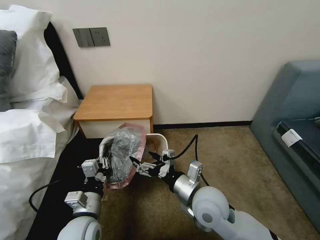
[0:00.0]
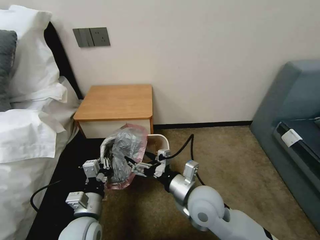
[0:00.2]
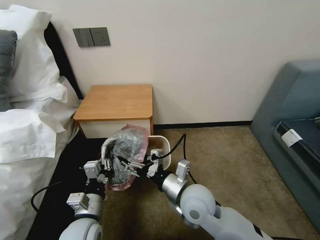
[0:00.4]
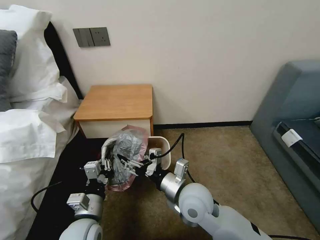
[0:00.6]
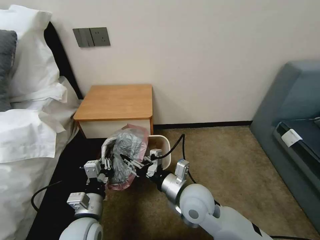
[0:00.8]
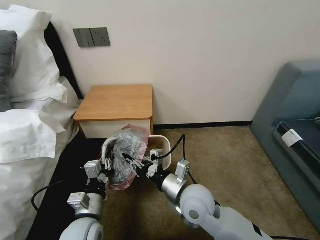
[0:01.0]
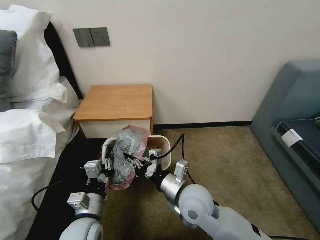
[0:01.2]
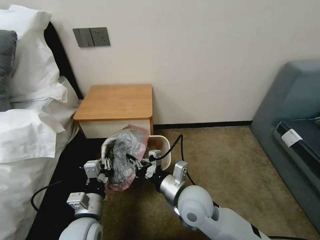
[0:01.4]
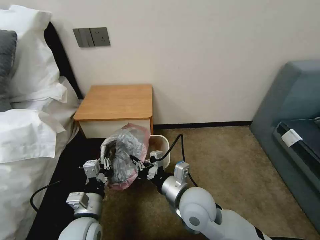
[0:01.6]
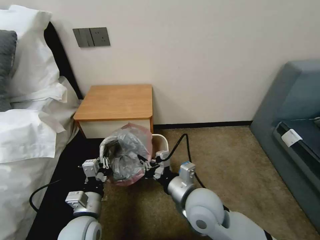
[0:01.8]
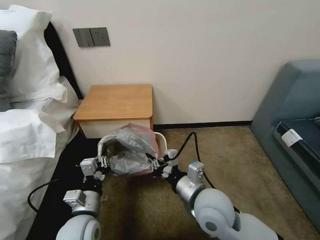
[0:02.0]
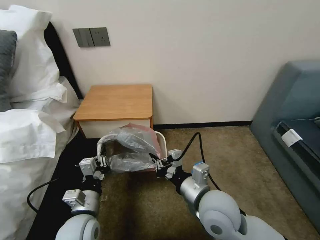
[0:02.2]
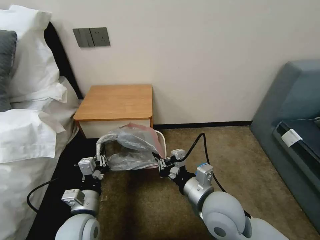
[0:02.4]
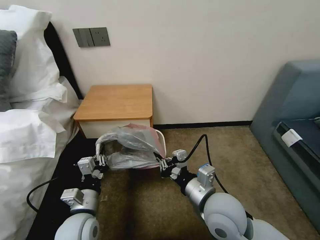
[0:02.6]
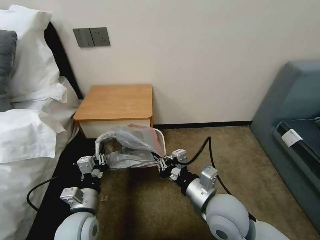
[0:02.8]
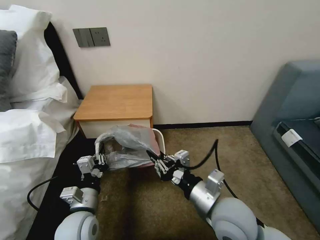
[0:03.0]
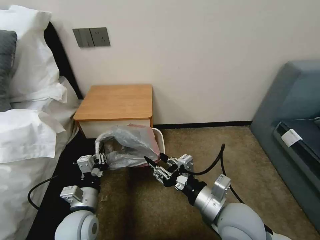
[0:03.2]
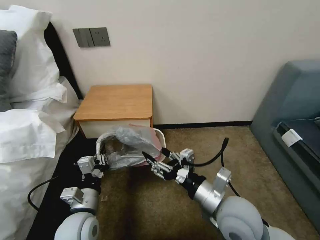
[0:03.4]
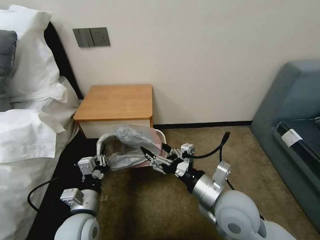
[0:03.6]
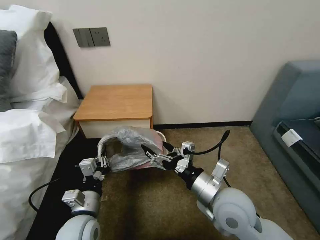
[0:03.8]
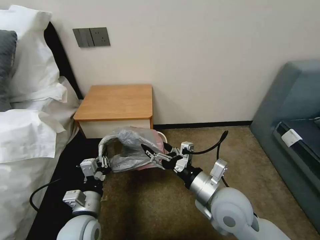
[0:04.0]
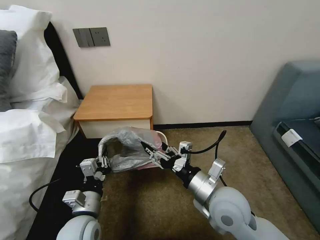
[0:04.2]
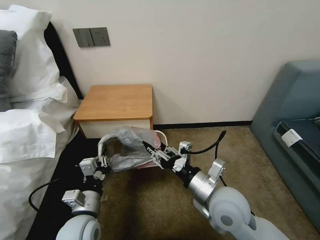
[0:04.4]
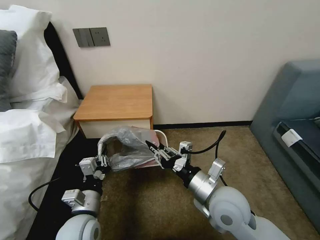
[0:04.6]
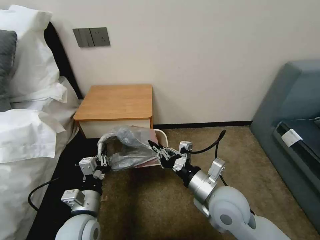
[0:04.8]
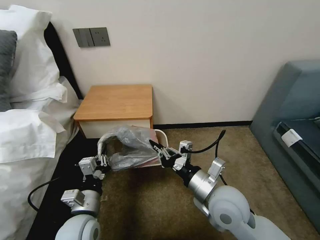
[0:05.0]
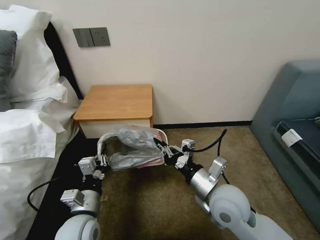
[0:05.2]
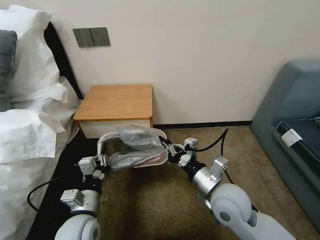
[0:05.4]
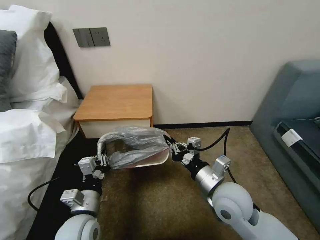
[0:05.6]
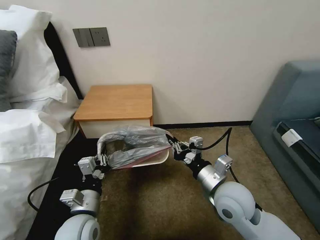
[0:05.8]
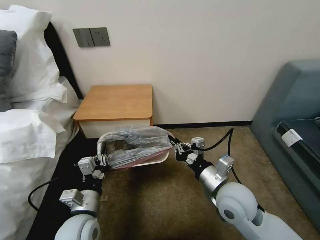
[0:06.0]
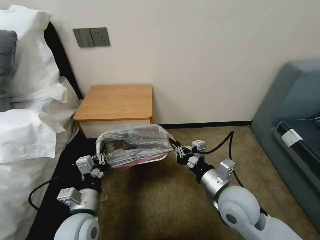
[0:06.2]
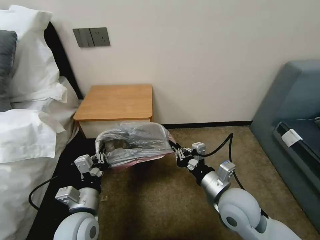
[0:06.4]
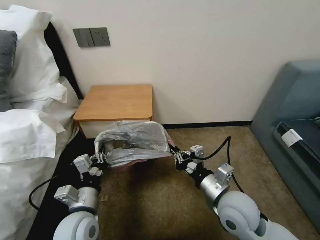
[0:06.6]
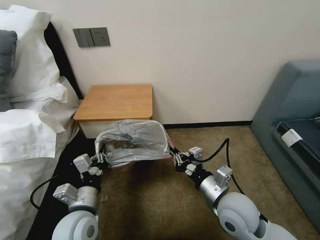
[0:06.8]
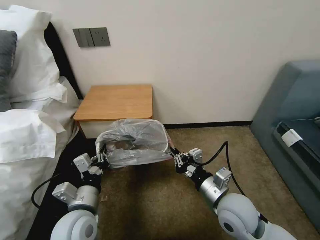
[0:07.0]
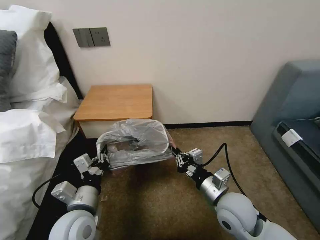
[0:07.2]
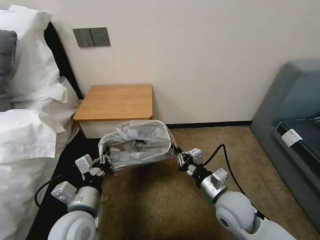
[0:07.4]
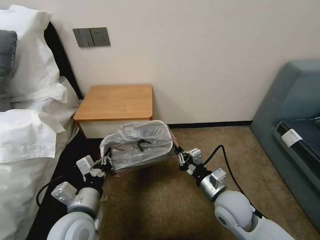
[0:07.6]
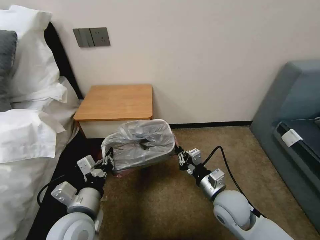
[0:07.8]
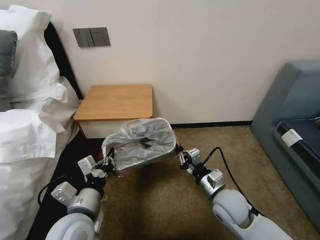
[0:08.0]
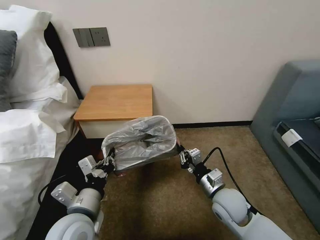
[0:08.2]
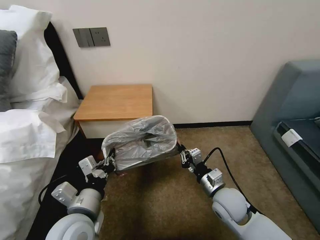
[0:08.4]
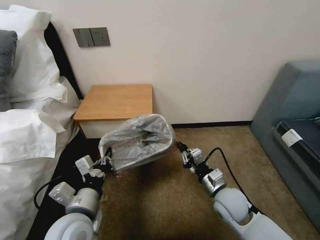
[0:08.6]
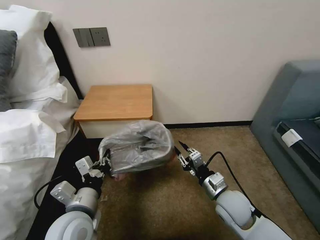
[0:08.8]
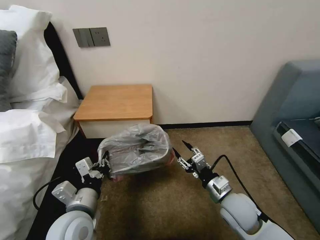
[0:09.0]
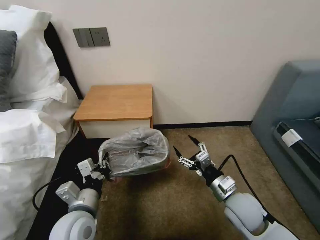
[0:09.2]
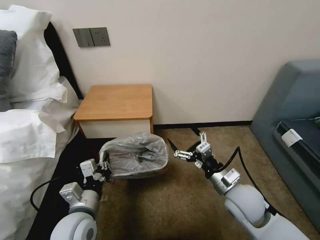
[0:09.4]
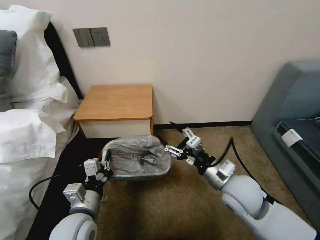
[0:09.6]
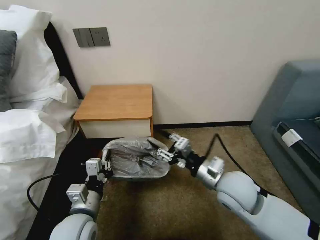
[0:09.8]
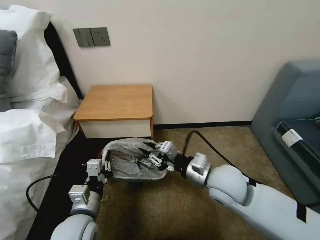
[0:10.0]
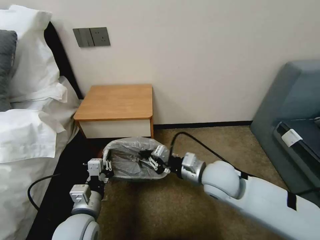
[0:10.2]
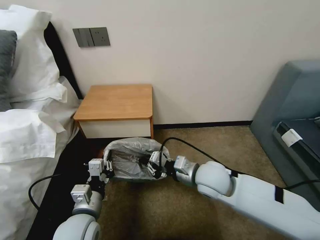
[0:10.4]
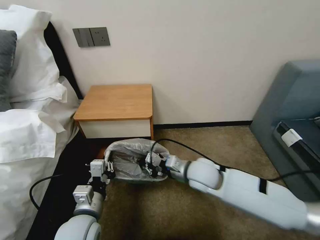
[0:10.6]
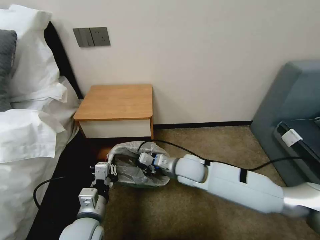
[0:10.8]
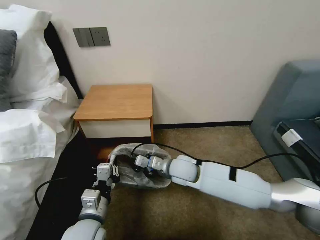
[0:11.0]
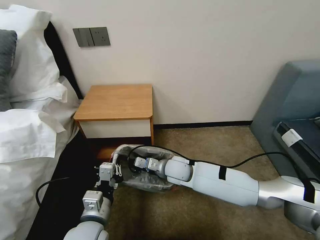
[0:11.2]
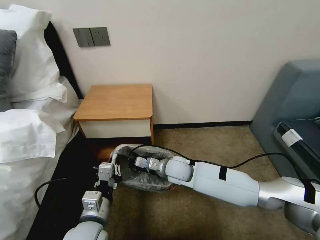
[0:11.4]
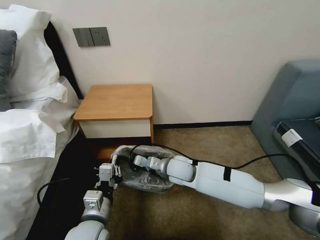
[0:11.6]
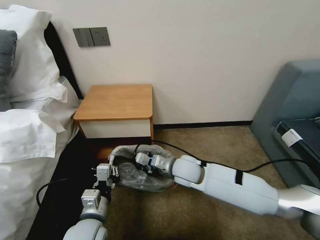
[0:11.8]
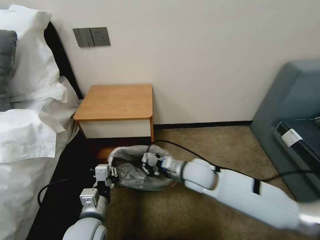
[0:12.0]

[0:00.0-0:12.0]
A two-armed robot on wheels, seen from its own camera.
Task of the whole recording: Pick up the garbage bag from the table and place it over the trash can.
0.0 to 1.6 s: The right gripper closes up.
1.6 to 3.0 s: The right gripper heads to the right, covering approximately 5 cm.
3.0 to 4.4 s: The right gripper opens and closes again.
4.4 to 6.0 s: The right gripper closes up.
6.0 to 7.6 s: The left gripper ends up roughly 5 cm from where it was, while the right gripper is displaced downward by some 5 cm.
7.6 to 9.0 s: The right gripper opens up.
9.0 to 10.4 s: The right gripper heads to the left, upward and forward, covering approximately 15 cm, and closes.
10.4 to 12.0 s: The right gripper goes downward and returns, roughly 10 cm each way.

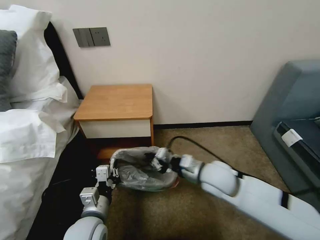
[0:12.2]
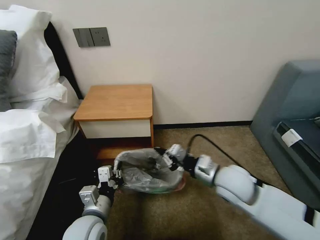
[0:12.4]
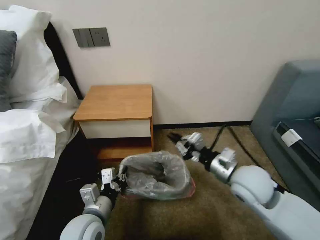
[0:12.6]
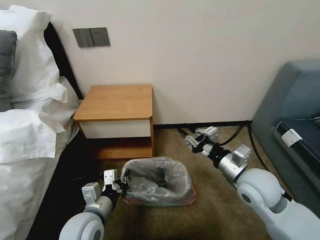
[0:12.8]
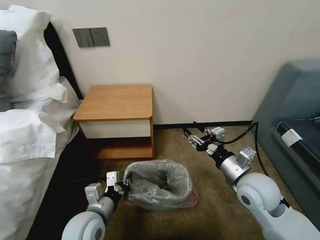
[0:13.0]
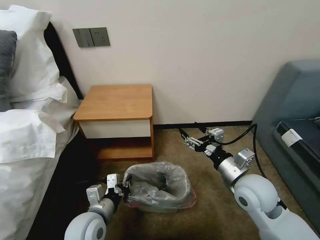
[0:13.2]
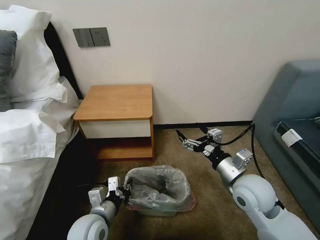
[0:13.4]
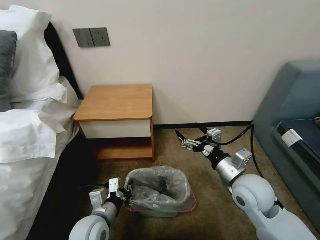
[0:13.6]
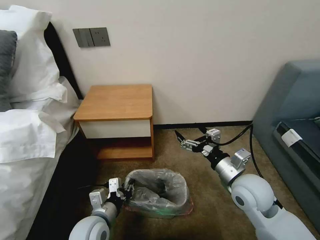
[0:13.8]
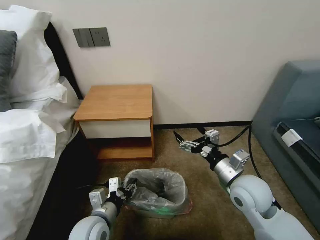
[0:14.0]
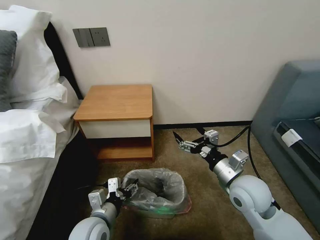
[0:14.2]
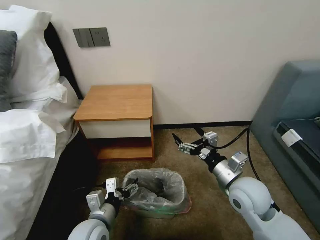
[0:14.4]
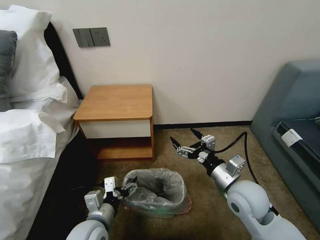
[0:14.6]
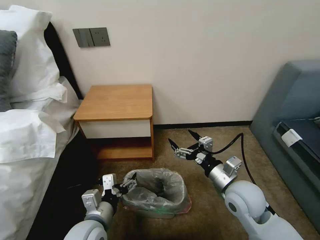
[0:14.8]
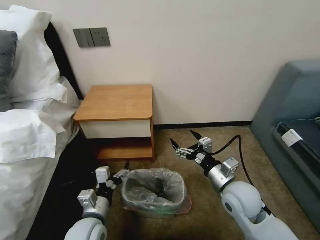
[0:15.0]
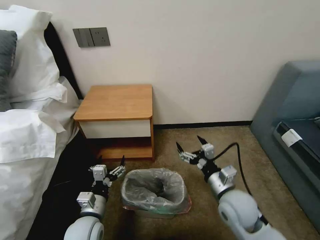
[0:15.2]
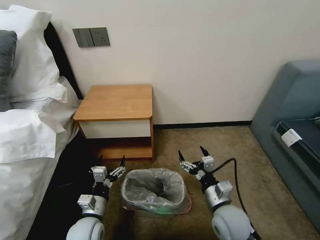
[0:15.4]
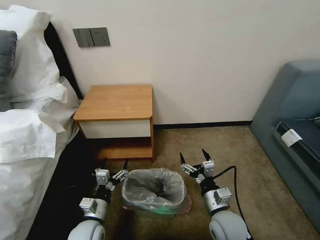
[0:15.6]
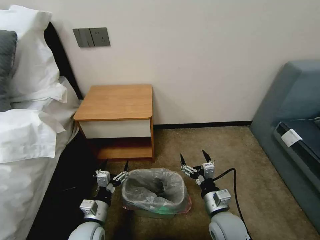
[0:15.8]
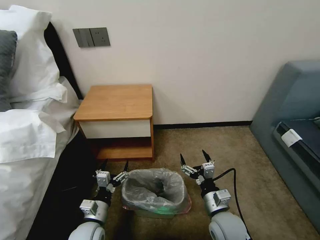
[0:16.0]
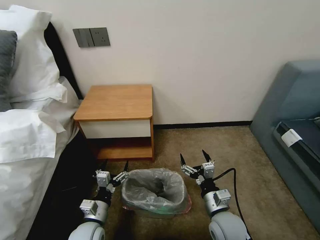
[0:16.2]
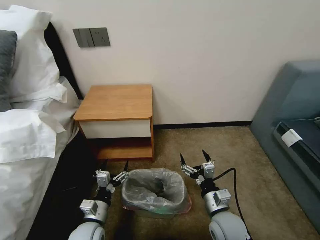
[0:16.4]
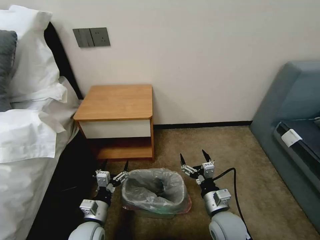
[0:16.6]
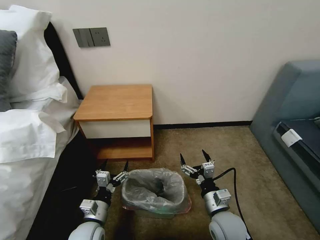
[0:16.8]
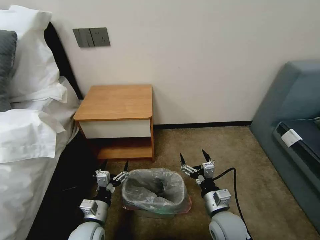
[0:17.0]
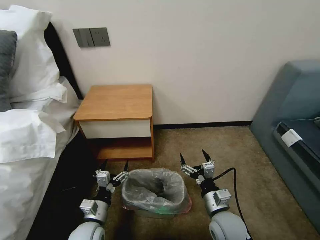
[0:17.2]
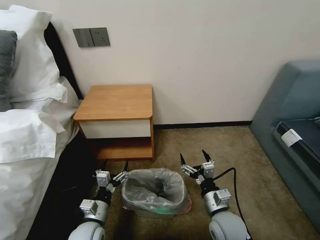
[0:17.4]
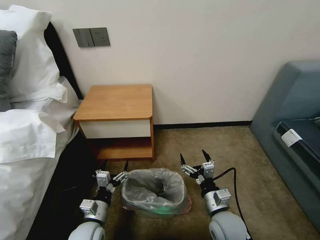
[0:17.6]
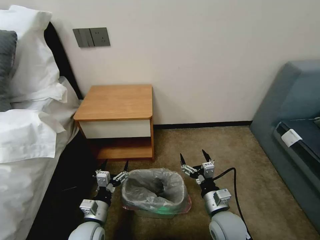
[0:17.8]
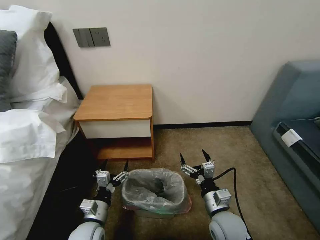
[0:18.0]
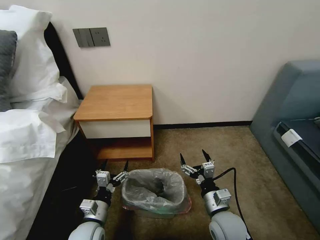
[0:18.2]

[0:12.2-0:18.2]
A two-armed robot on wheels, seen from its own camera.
Task of the whole recording: Pick up the garbage bag from the table and place it over the trash can.
12.2 to 13.8 s: The right gripper heads to the right, covering approximately 10 cm, and opens up.
13.8 to 15.2 s: The right gripper moves downward, roughly 5 cm; the left gripper opens its fingers.
15.2 to 16.6 s: The right gripper is displaced downward by approximately 5 cm.
16.6 to 18.2 s: Both grippers stay put.

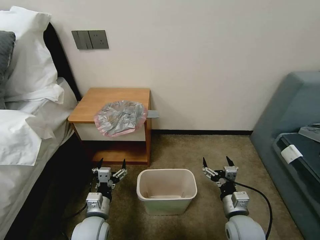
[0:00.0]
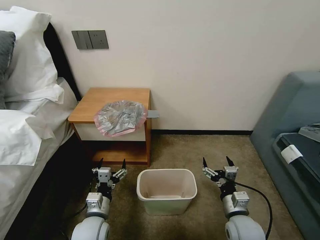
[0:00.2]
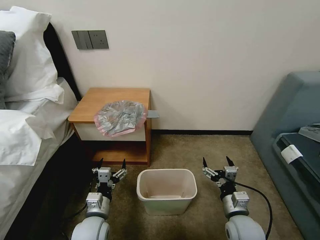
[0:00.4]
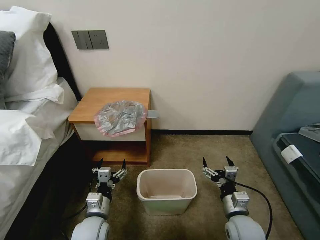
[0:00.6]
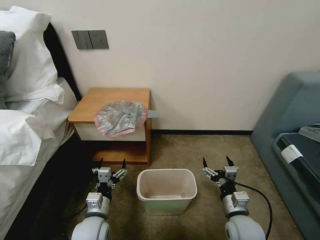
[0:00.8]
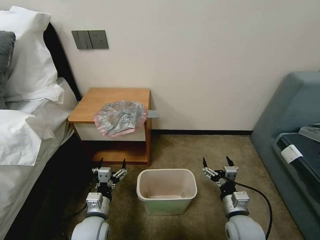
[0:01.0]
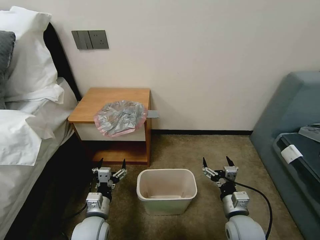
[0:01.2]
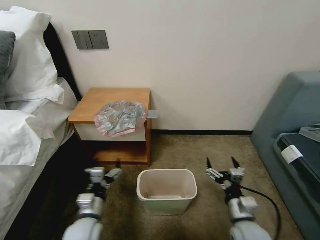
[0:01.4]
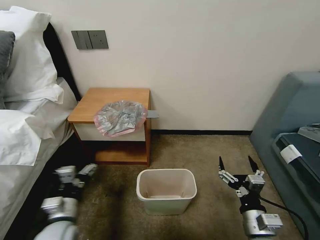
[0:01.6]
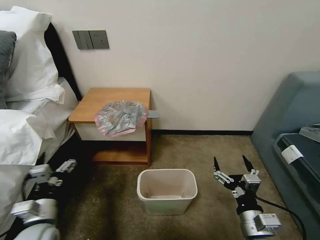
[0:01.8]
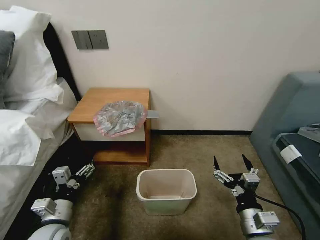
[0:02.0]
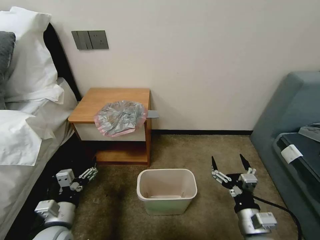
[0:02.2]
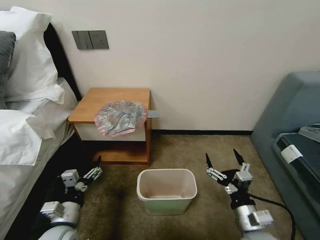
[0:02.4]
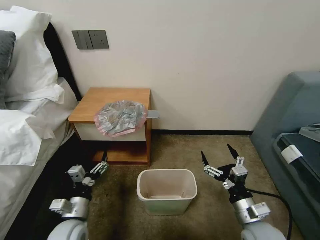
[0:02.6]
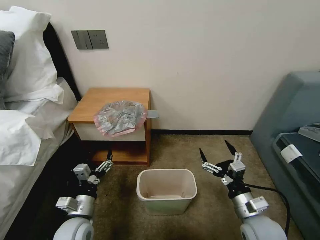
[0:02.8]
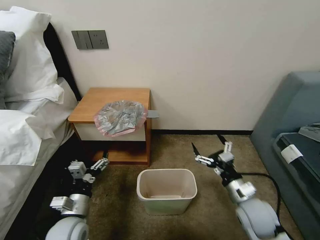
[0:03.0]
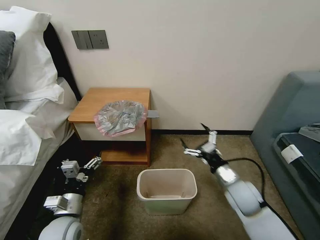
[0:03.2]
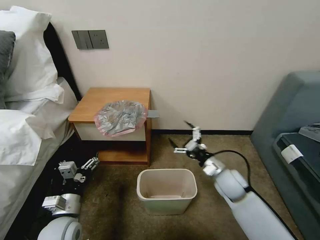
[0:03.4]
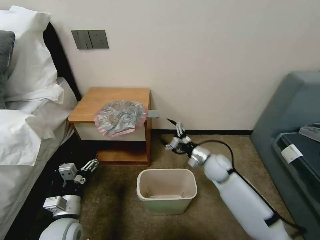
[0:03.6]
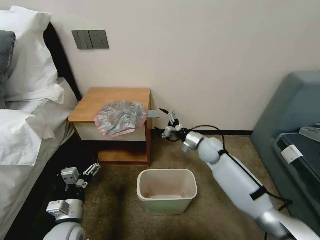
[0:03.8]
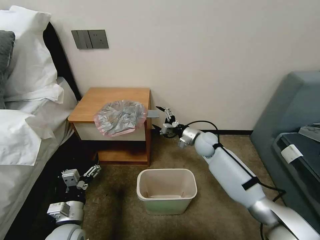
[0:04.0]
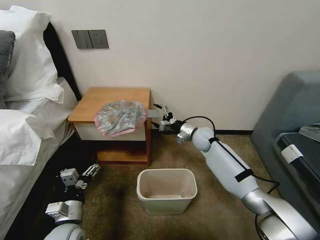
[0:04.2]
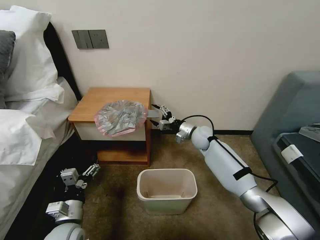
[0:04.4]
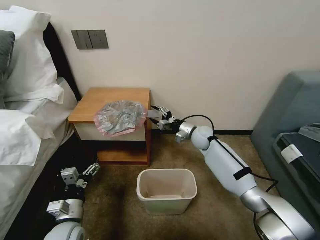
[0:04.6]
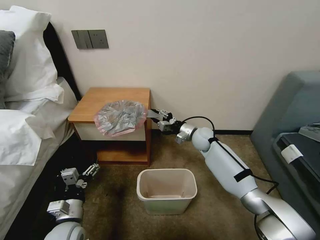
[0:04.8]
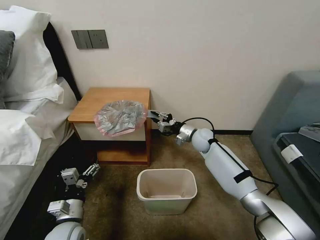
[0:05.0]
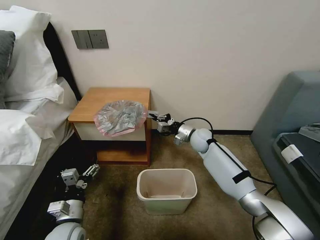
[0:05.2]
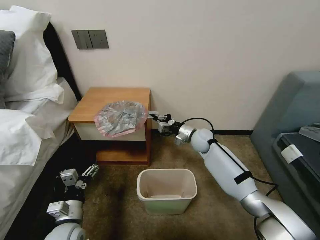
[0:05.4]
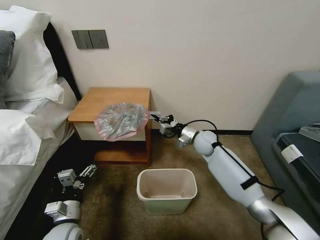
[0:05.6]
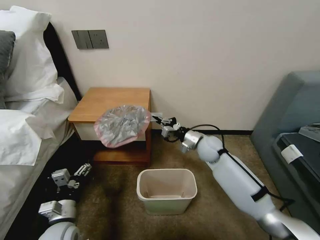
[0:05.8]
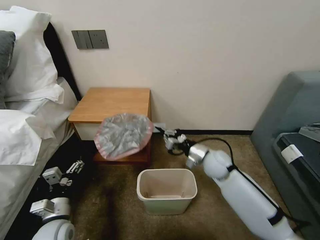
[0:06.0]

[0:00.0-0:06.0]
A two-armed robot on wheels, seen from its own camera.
Task of the whole recording: Pick up the garbage bag from the table and place it over the trash can.
1.6 to 3.0 s: The right gripper goes about 10 cm forward.
3.0 to 4.4 s: The right gripper shifts approximately 30 cm forward.
4.4 to 6.0 s: The right gripper travels backward by about 15 cm, and closes its fingers.
